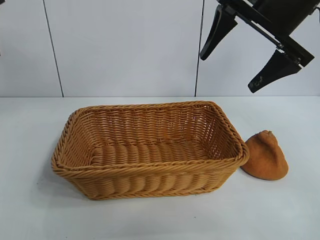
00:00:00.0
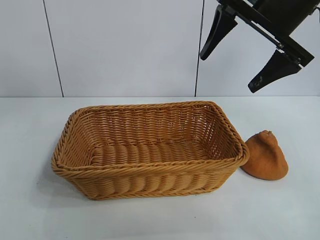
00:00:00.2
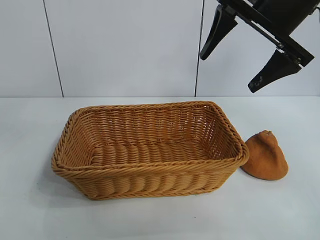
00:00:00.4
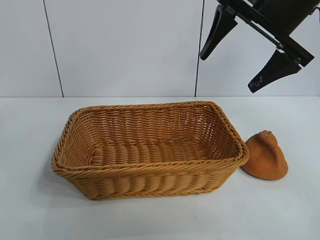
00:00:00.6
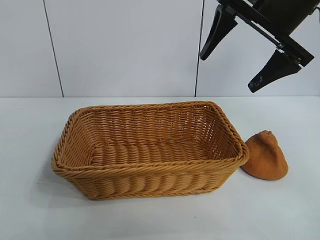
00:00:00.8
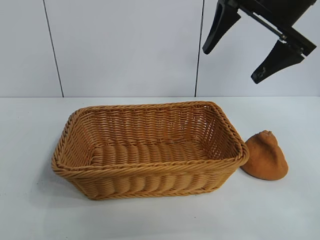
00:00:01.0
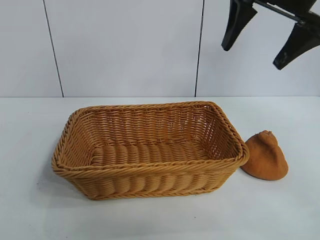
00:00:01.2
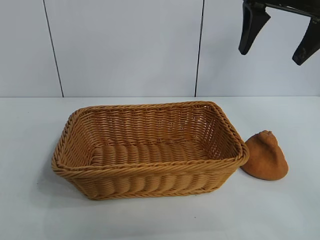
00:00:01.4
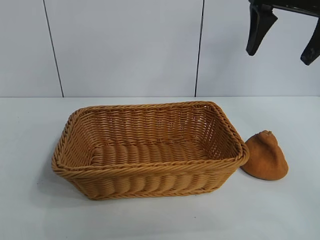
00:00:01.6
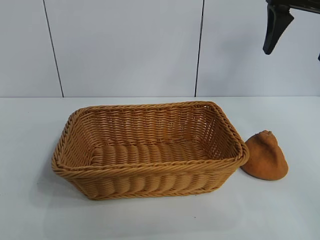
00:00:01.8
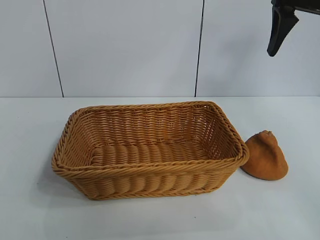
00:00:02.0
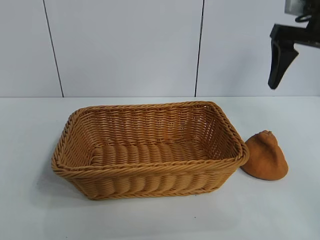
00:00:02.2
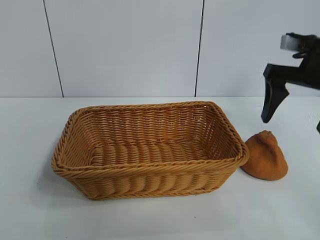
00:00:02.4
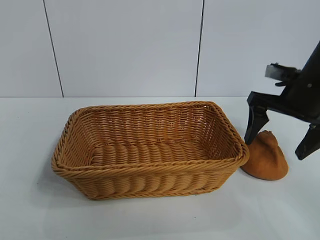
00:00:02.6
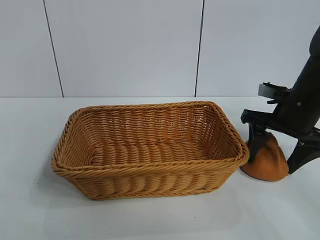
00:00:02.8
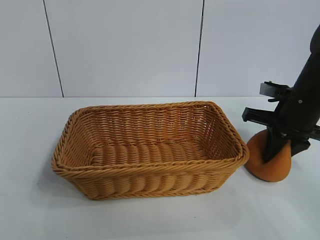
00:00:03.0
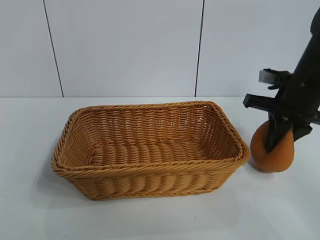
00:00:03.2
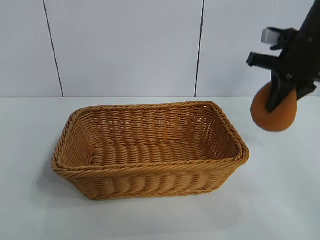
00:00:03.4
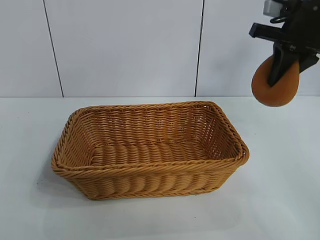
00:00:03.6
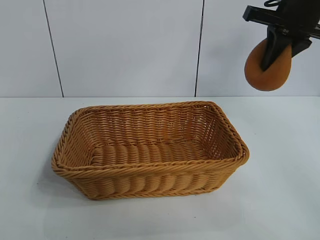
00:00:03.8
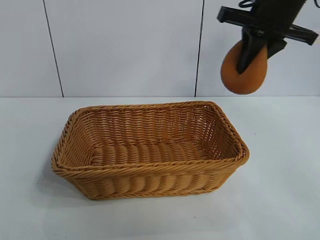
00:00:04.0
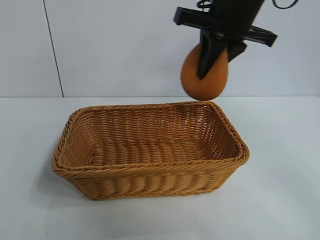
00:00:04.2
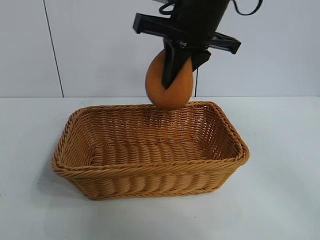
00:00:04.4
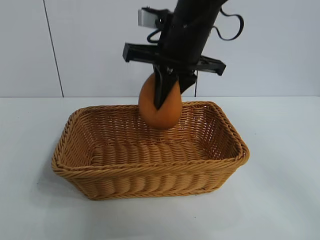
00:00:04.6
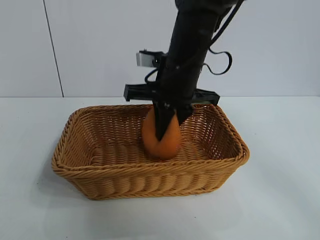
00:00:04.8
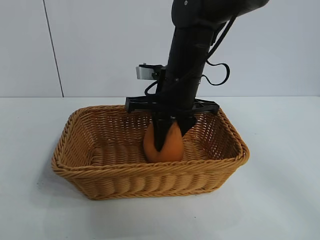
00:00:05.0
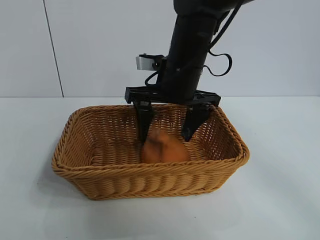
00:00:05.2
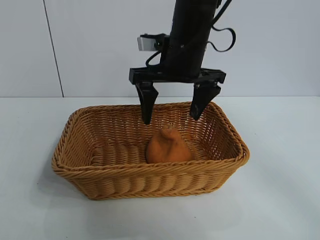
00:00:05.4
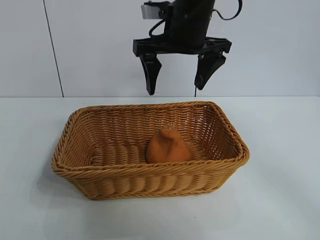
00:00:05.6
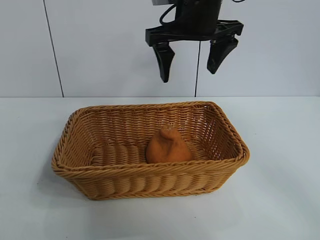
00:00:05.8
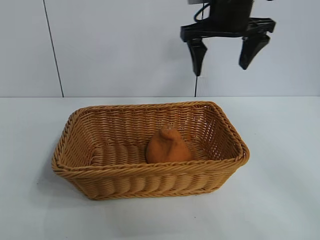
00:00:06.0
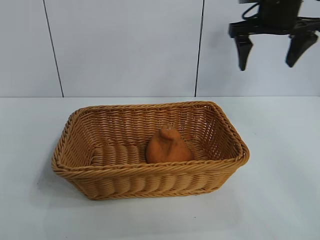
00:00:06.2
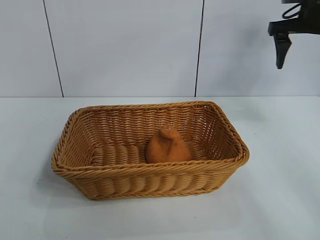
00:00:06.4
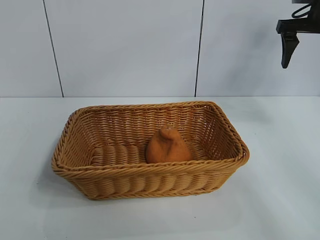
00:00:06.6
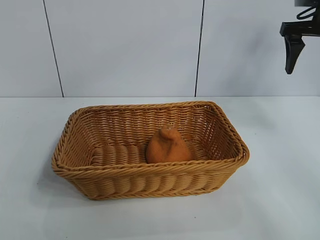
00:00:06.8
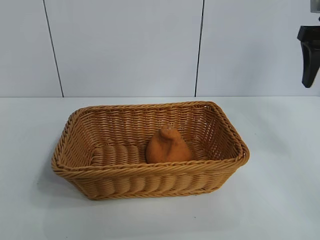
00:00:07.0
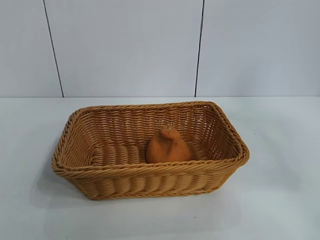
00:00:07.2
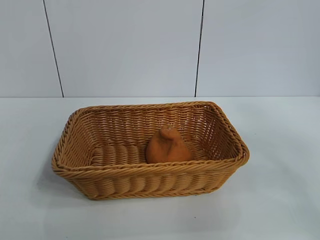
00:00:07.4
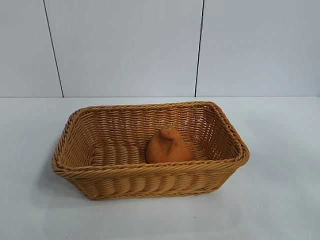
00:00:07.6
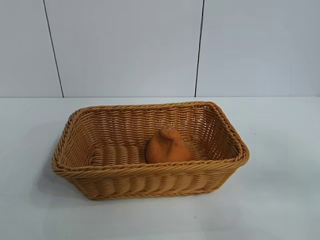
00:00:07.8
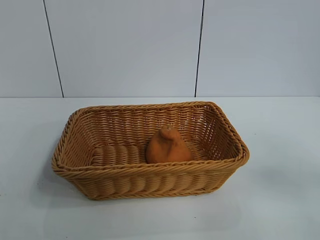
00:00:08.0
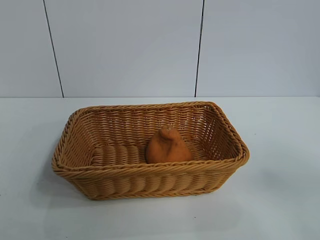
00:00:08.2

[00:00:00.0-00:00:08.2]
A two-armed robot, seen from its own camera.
Task of the whole recording: pick up the orange and put it into the basket.
Step, 00:00:00.0 to 00:00:03.0: Grasp the orange with right gripper.
Step, 00:00:03.2 to 00:00:05.2: Place the orange in the basket with right gripper.
